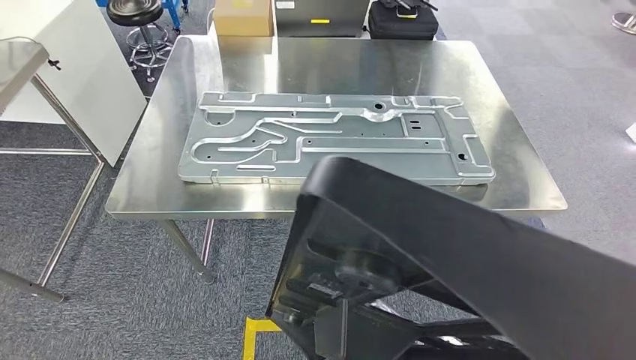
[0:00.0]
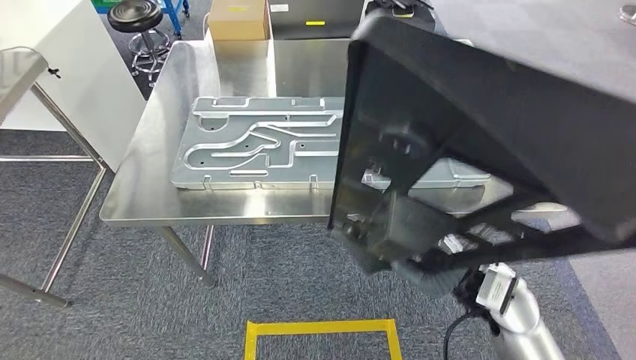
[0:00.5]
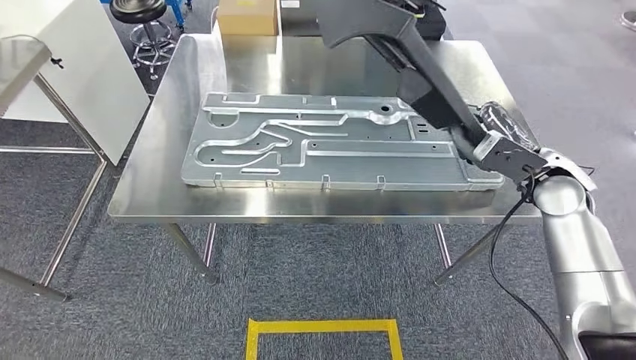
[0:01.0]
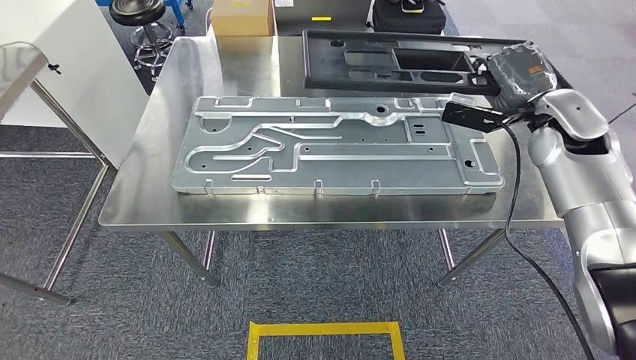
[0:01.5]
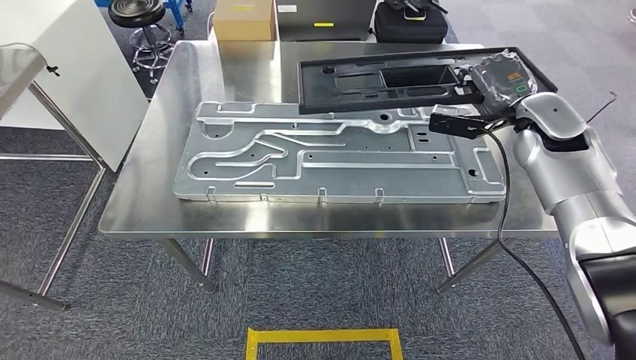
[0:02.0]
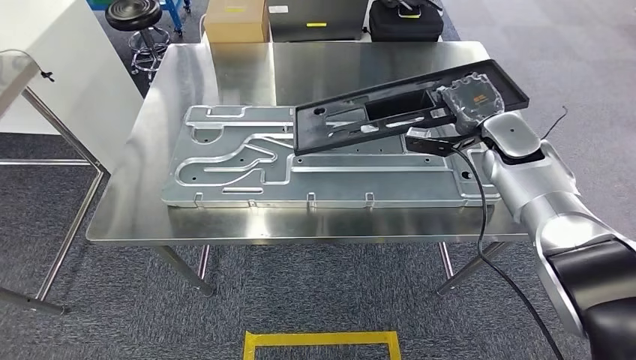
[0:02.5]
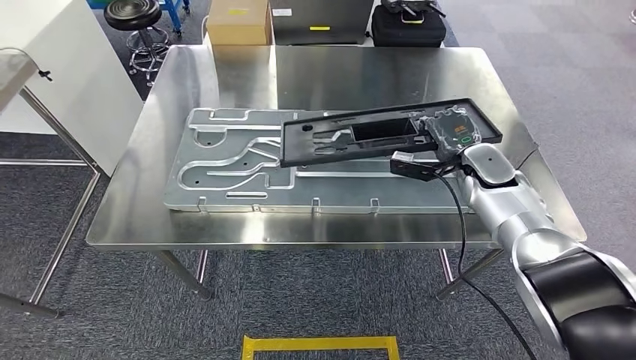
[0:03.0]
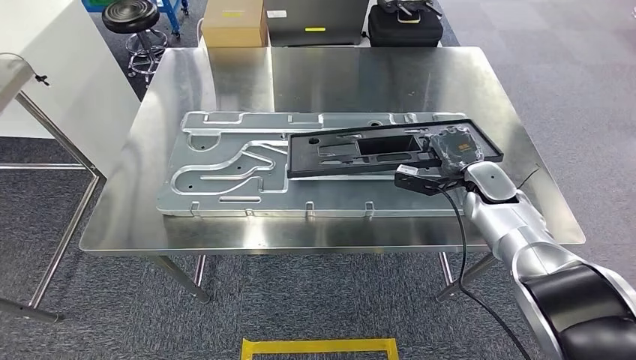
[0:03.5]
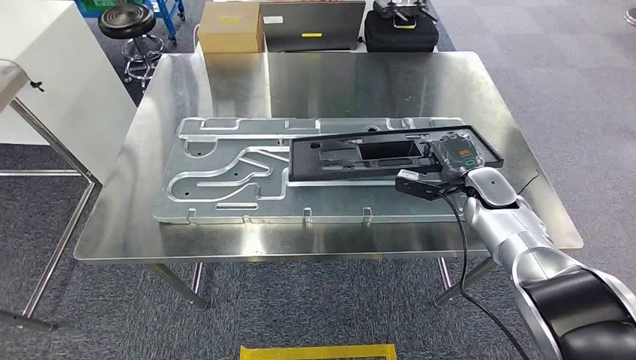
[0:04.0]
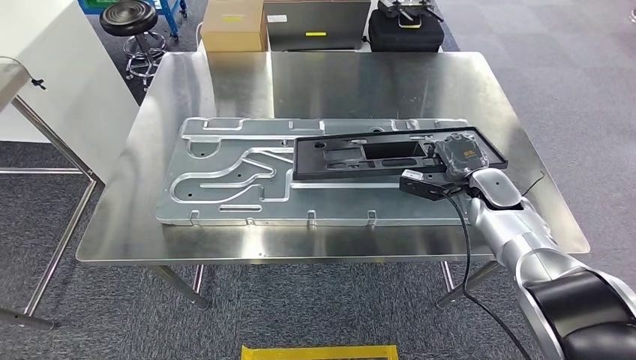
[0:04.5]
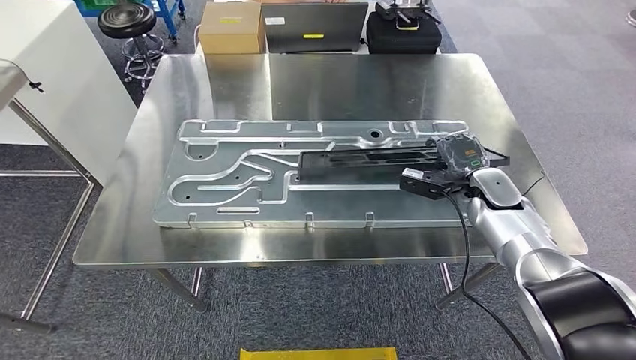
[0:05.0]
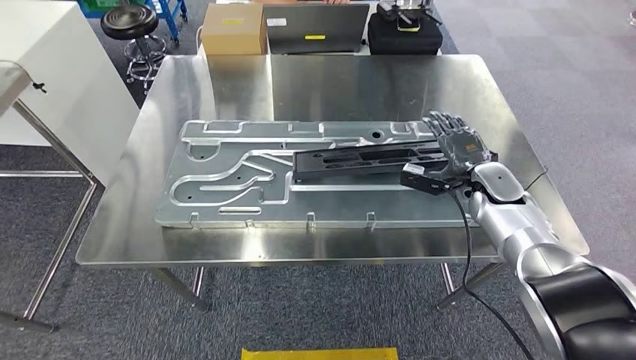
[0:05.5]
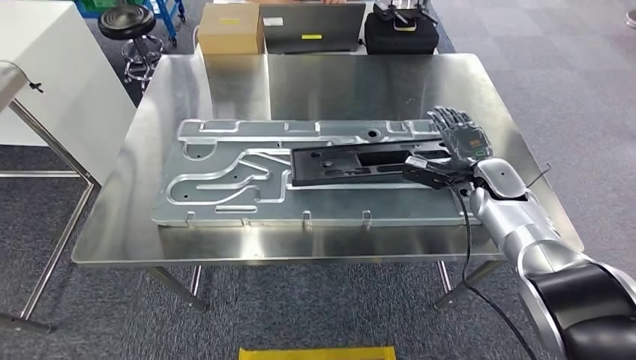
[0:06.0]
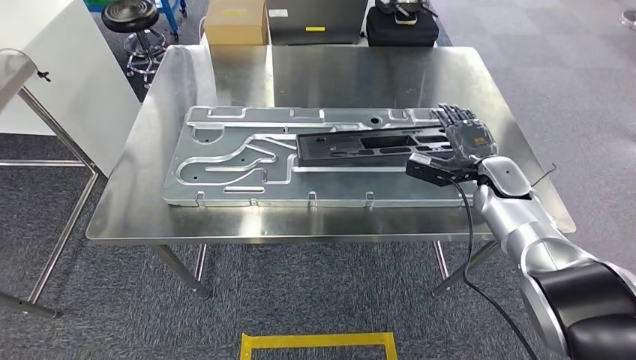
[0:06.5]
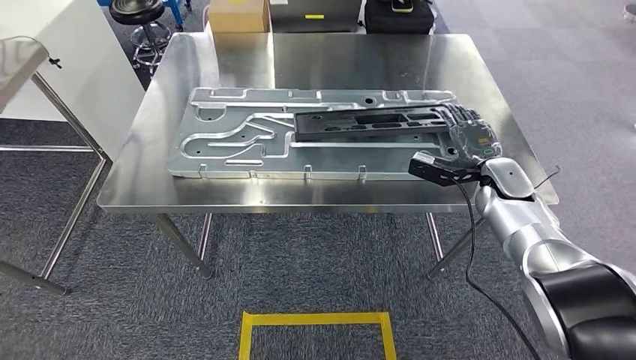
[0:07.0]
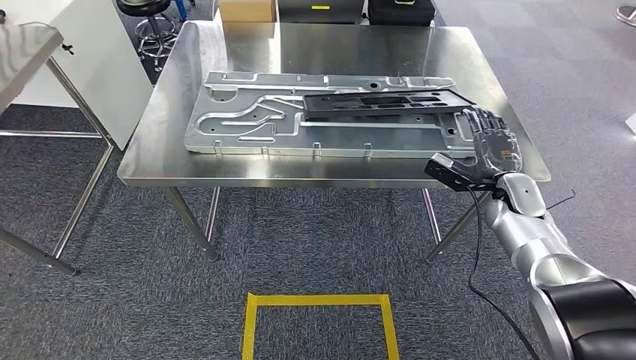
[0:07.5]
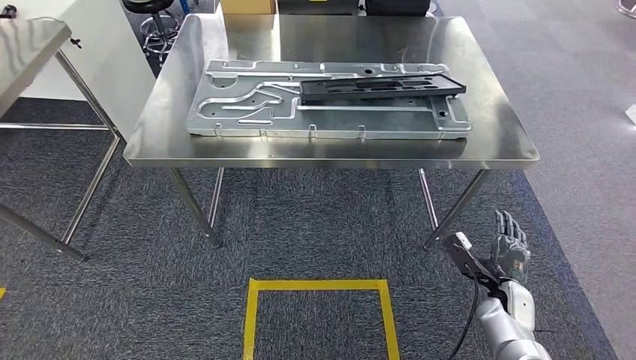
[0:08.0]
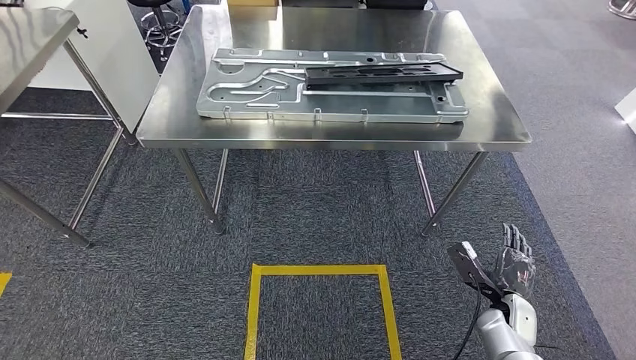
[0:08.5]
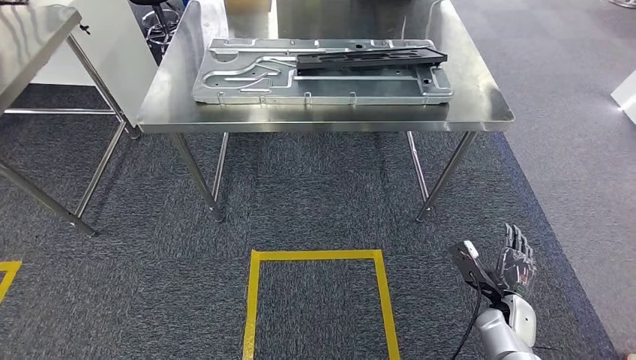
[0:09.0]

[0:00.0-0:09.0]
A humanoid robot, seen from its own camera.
Step, 0:02.5 to 0:05.5: Insert the large material into the corresponding slot on the workbench.

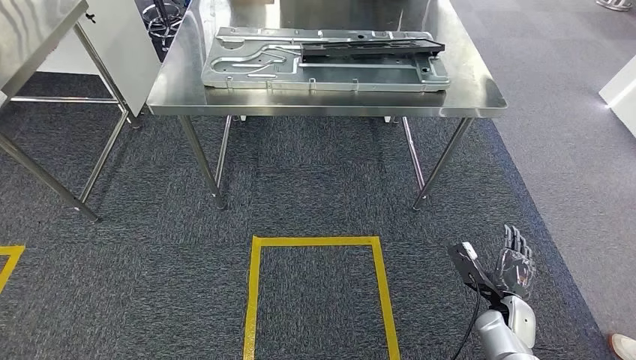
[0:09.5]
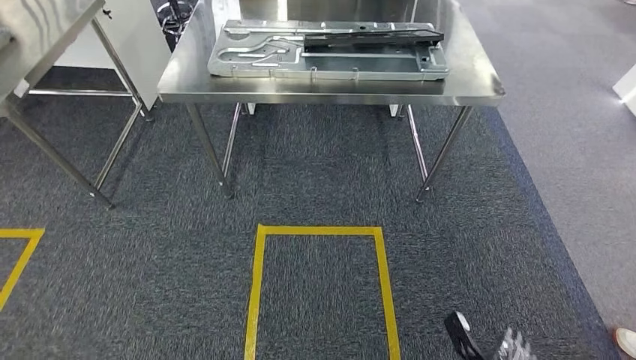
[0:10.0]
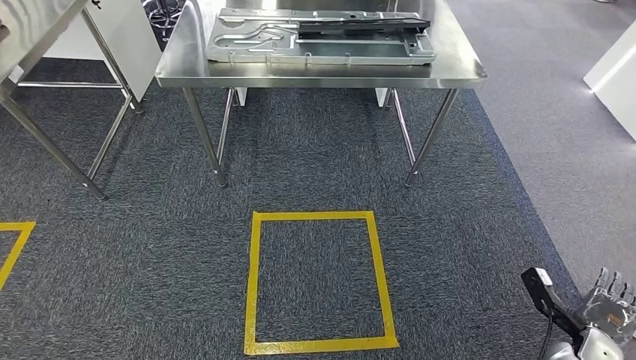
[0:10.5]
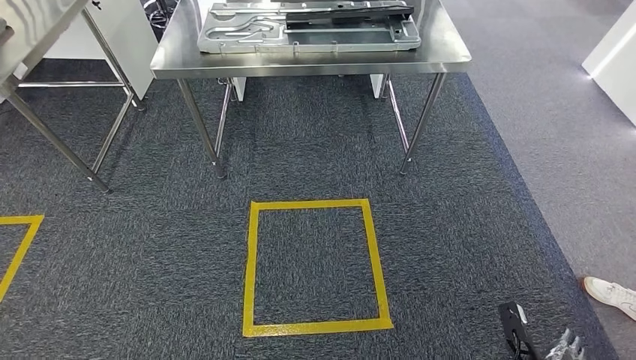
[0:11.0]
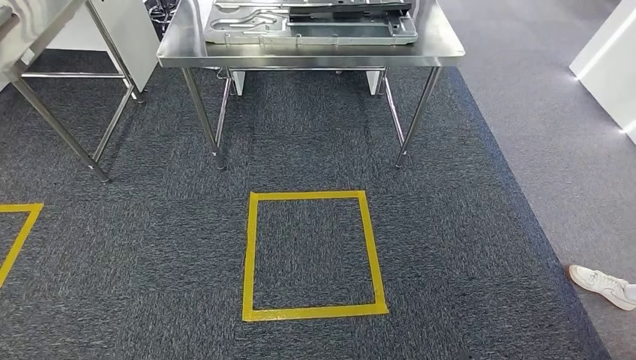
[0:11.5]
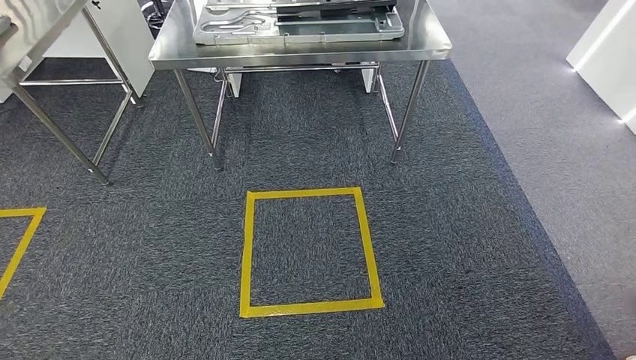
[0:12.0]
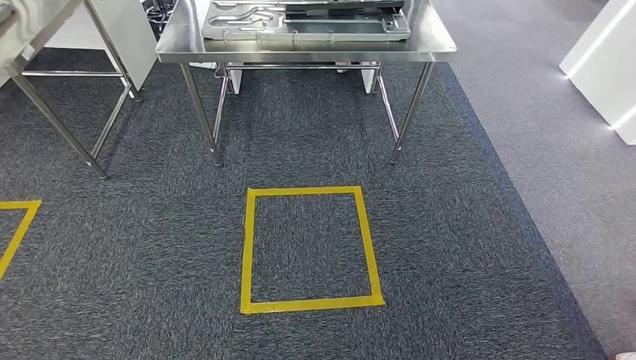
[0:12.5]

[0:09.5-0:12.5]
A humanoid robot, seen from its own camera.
Step, 0:09.5 to 0:12.5: Move to the initial position of the shelf.
